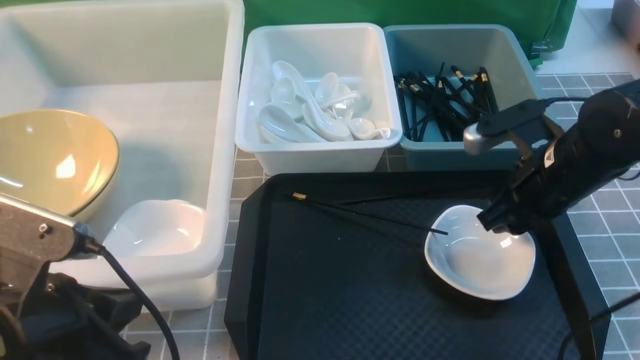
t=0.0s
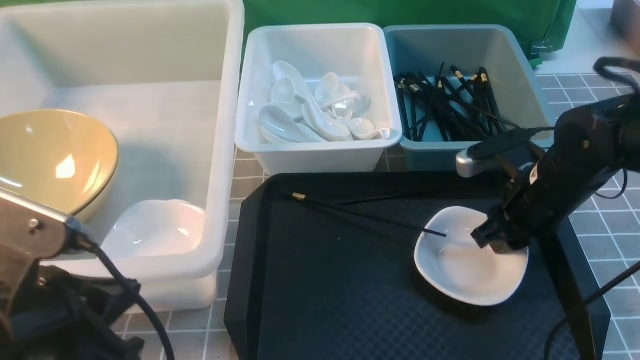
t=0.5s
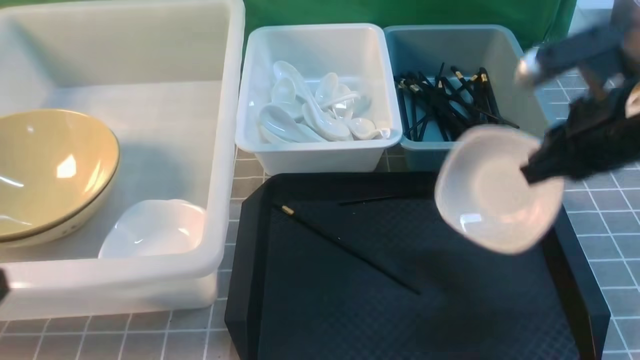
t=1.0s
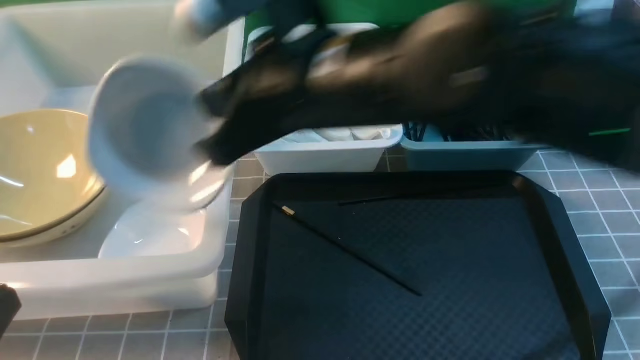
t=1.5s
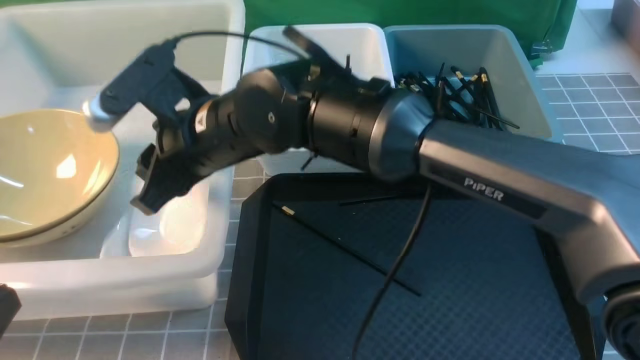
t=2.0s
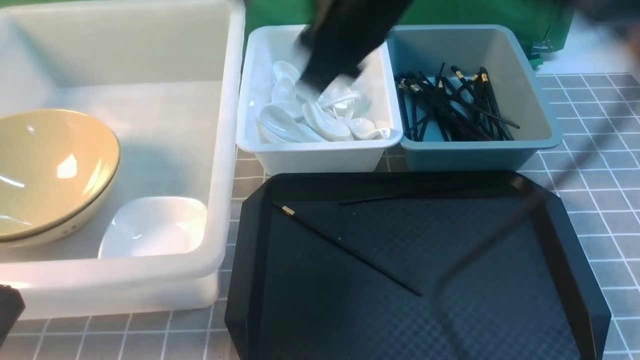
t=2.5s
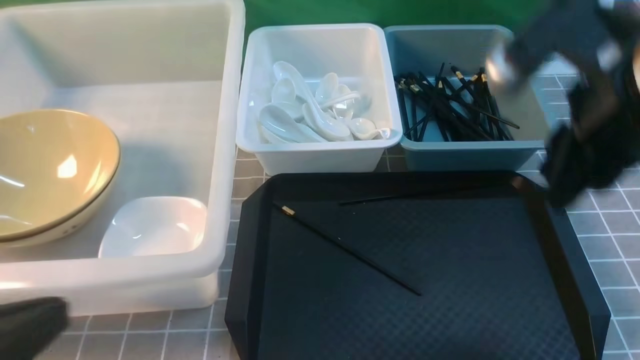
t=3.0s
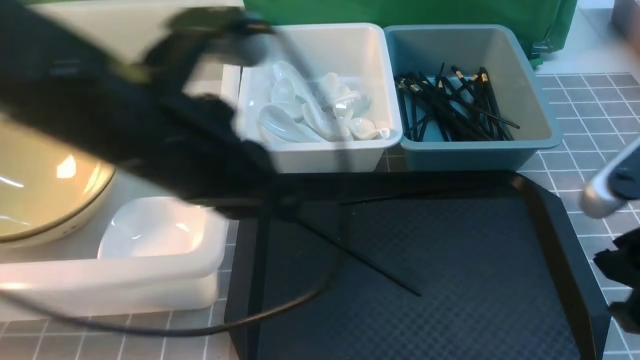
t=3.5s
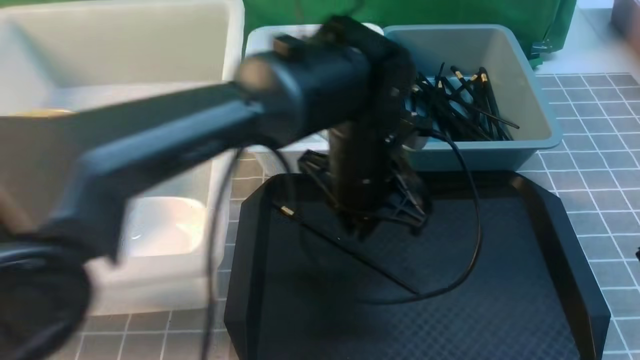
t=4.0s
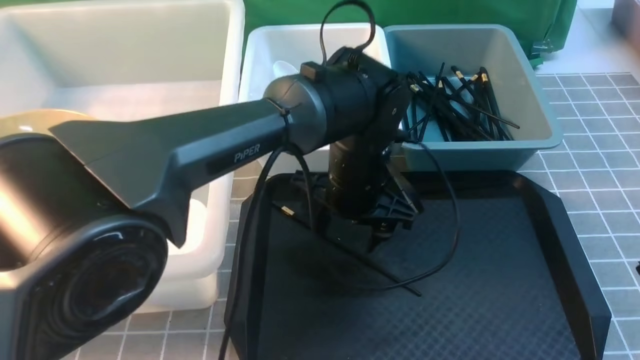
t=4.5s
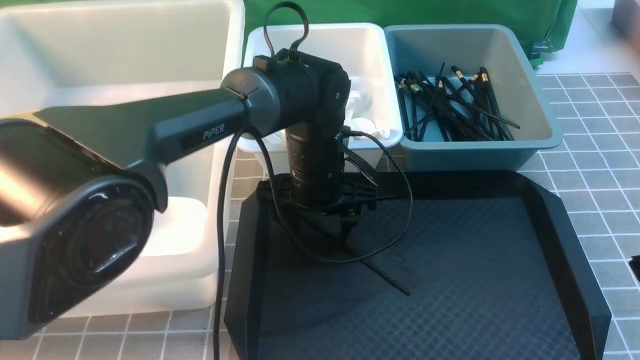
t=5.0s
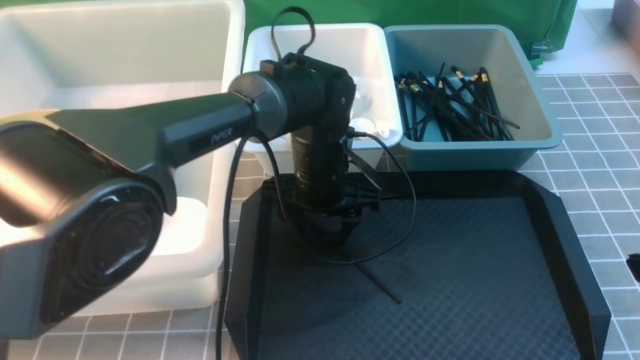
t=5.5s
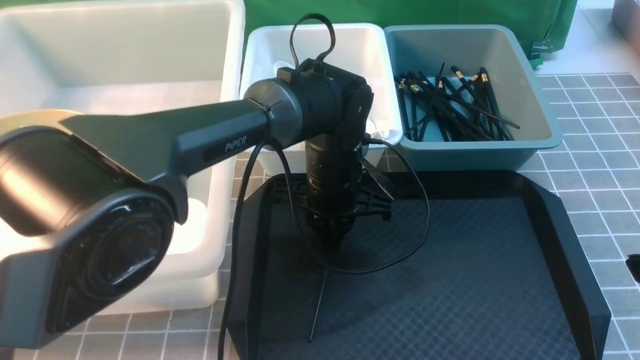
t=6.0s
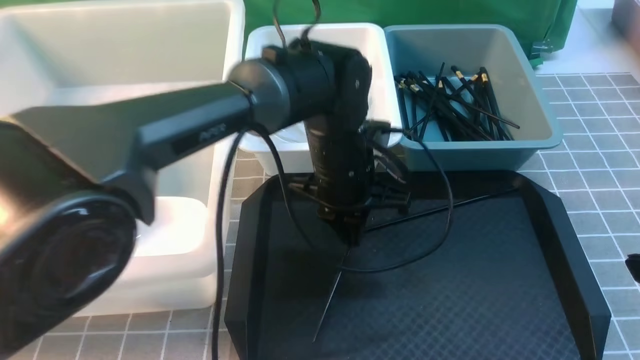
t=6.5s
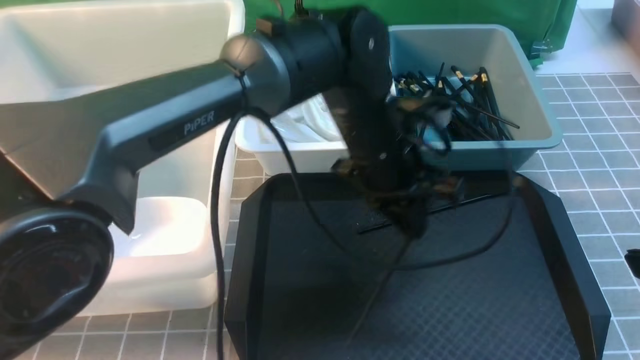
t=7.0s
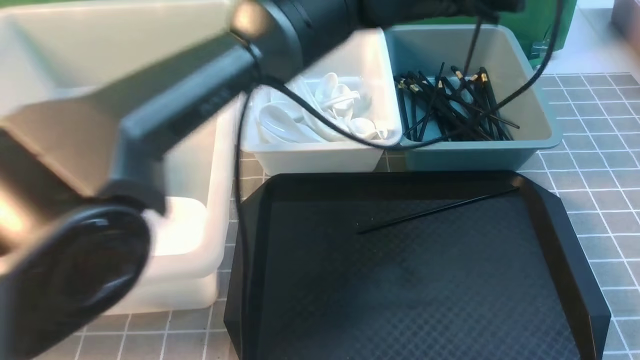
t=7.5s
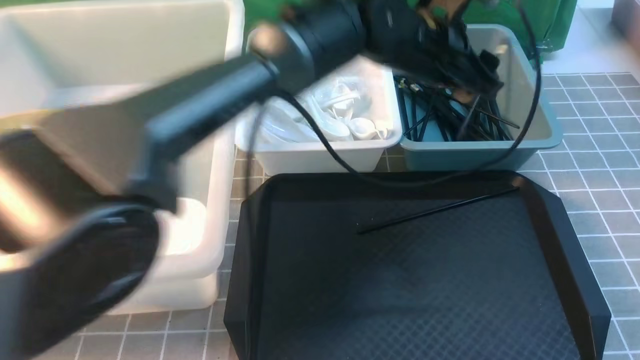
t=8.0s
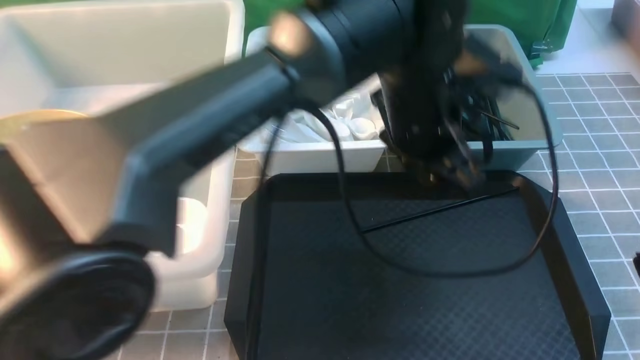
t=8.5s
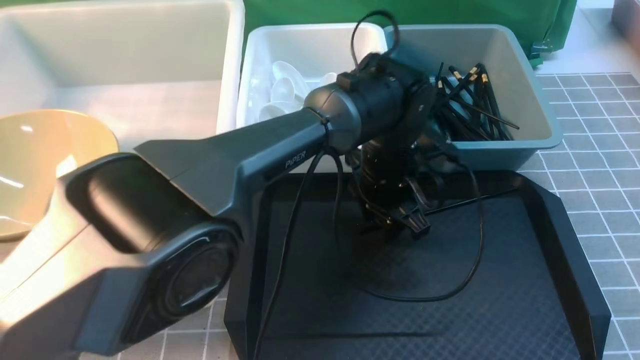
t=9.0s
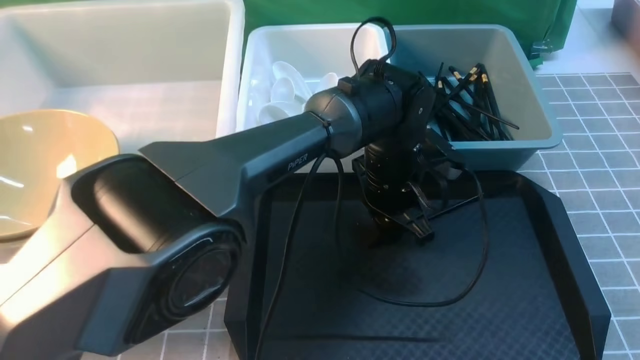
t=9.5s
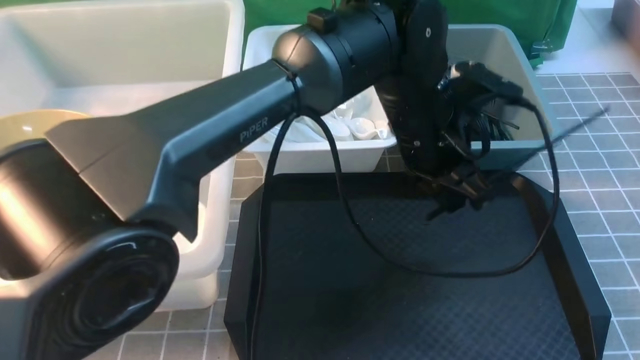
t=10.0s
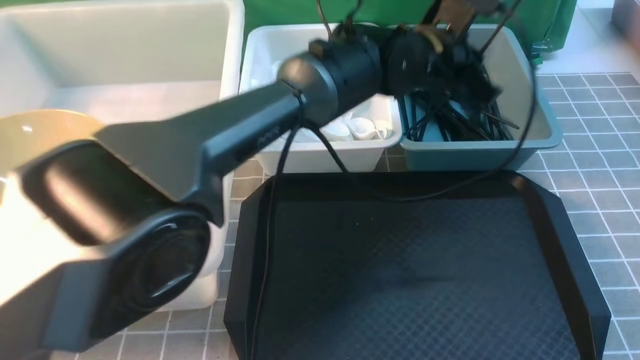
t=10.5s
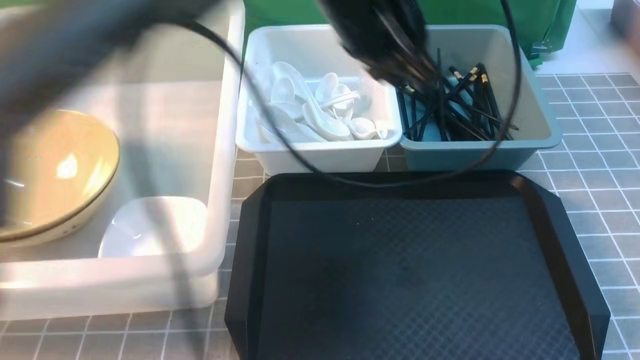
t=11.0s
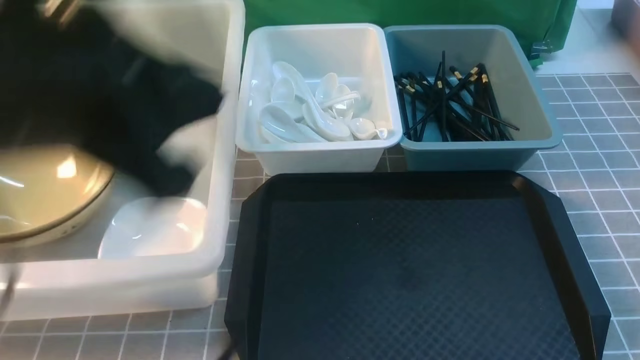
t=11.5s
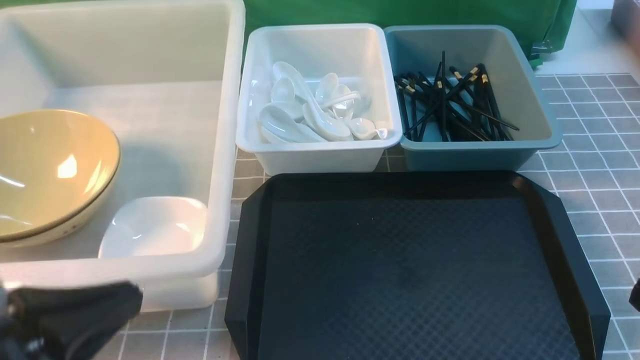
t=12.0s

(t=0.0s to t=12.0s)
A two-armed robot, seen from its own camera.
Task of the whole recording: on grey table put chopsticks spoon bowls plates into blue grey white boxes.
Step, t=1.0s - t=2.0s: use the right arm to put the plate into the large storage box on the left.
Step, t=2.5s - t=6.0s: use the left arm to grab a chopstick.
Step, t=6.5s - t=8.0s: use the left arm to put a chopstick into the small storage box on the right.
Step, t=8.5s - t=9.5s: use the left arm to grab a chopstick.
Step, t=10.0s - t=10.5s: use the left arm to put a chopstick into the small storage box on the right.
t=0.0s - t=2.0s: The right gripper shifts roughly 30 cm to the left, and closes and opens again, while the left gripper shifts some 10 cm backward.
t=2.0s - t=4.0s: The left gripper heads to the right and forward, covering some 40 cm. Meanwhile the right gripper shifts approximately 40 cm to the right and backward, and opens, then closes once more.
t=4.0s - t=6.0s: The left gripper goes about 15 cm downward and forward, and opens, then closes again.
t=6.0s - t=8.0s: The left gripper heads upward and to the right, covering roughly 15 cm, and opens its fingers.
t=8.0s - t=10.0s: The left gripper is displaced backward by approximately 5 cm, and closes its fingers.
t=10.0s - t=12.0s: The left gripper goes roughly 40 cm to the left and backward; the right gripper shifts by approximately 5 cm, and closes its fingers.

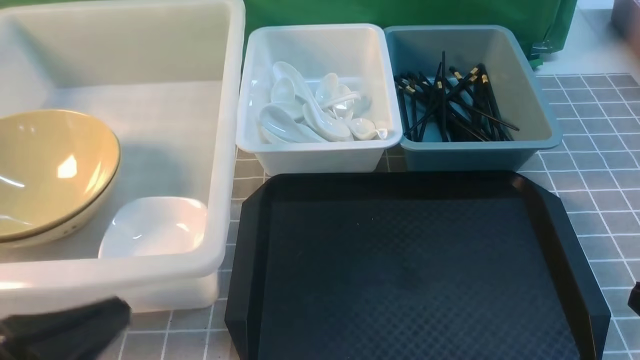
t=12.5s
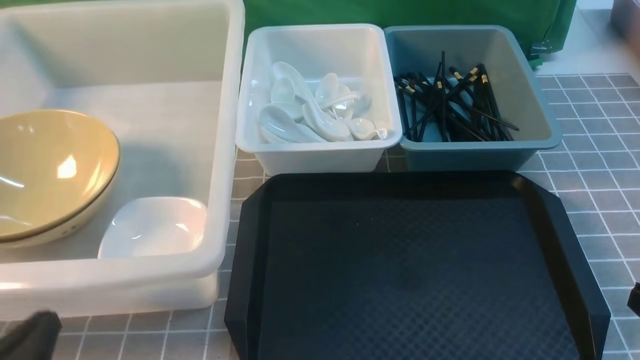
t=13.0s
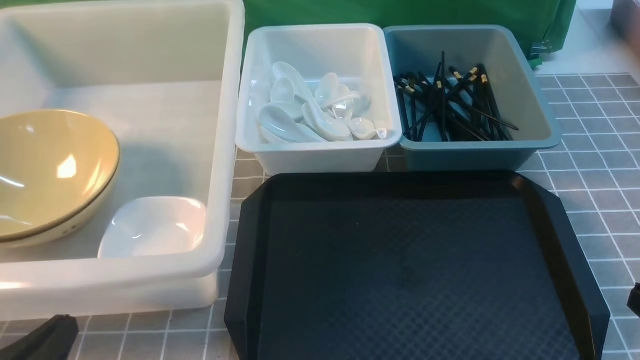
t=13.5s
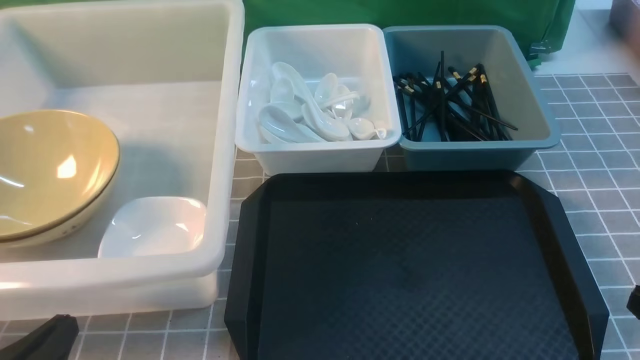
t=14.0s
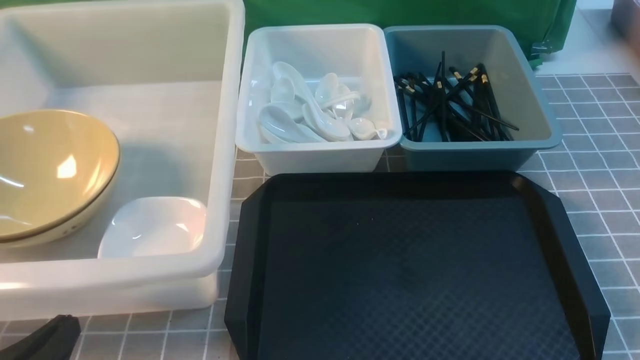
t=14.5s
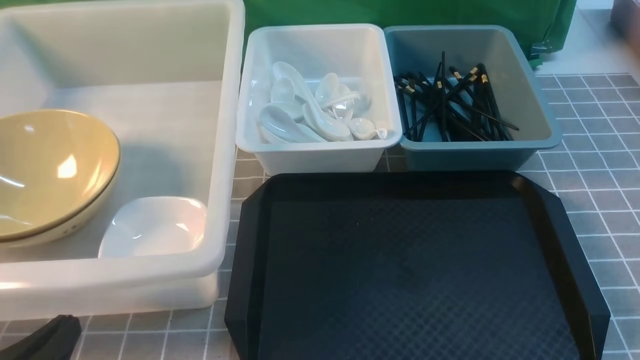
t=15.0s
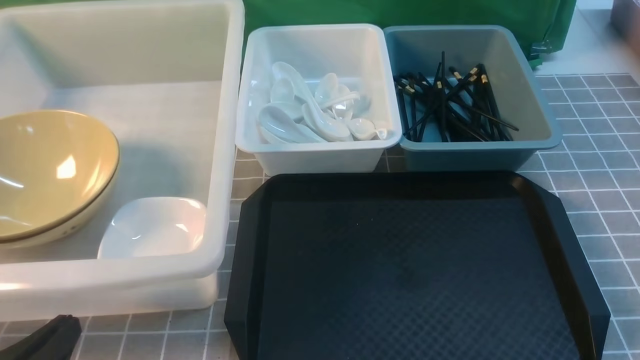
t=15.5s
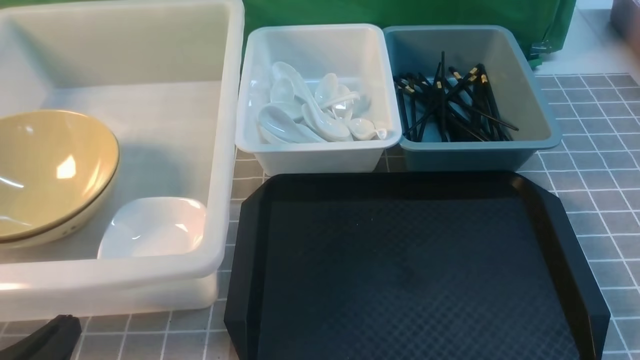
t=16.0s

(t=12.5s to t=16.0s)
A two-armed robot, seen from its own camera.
Task of the whole recording: on grey table put chopsticks spoon bowls plates into blue grey white boxes.
t=12.5s - t=14.5s: The left gripper heads downward, covering about 10 cm.

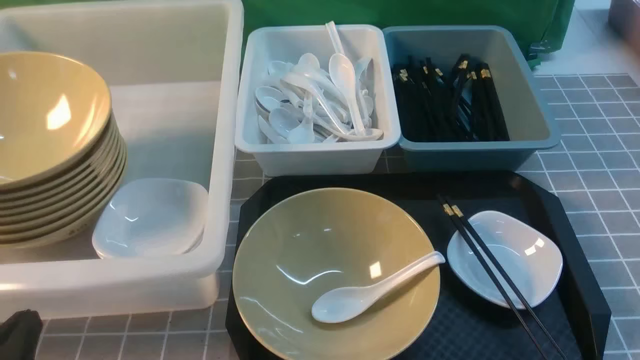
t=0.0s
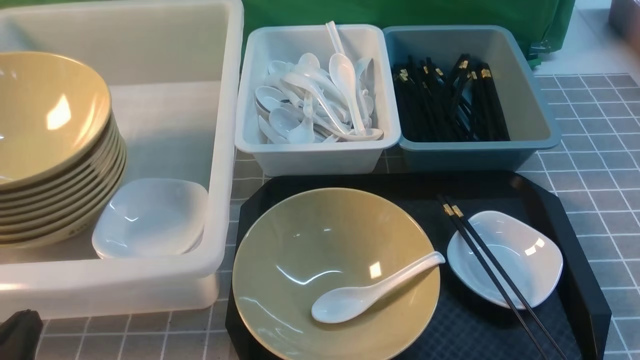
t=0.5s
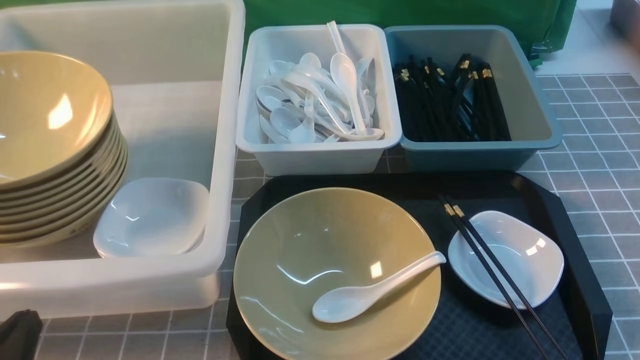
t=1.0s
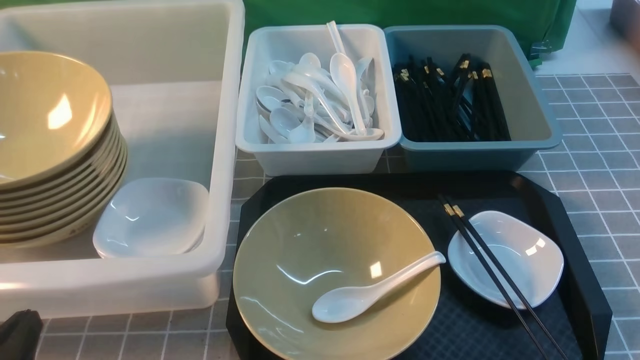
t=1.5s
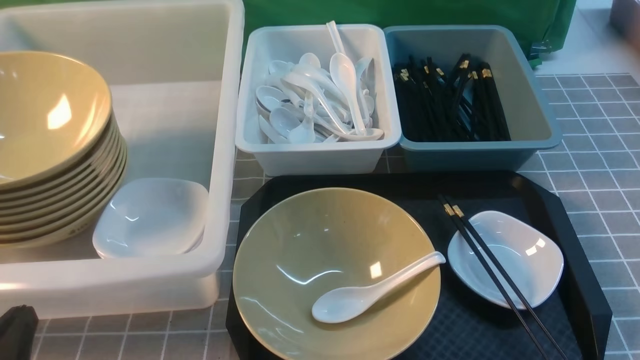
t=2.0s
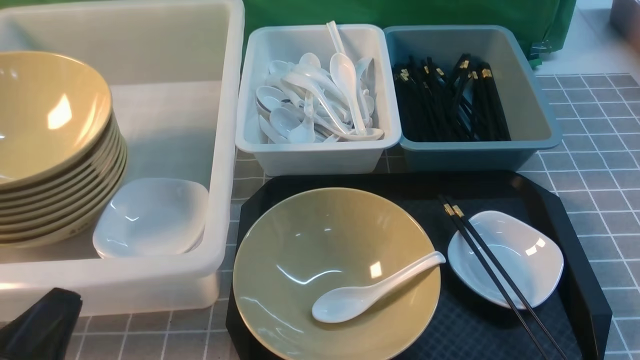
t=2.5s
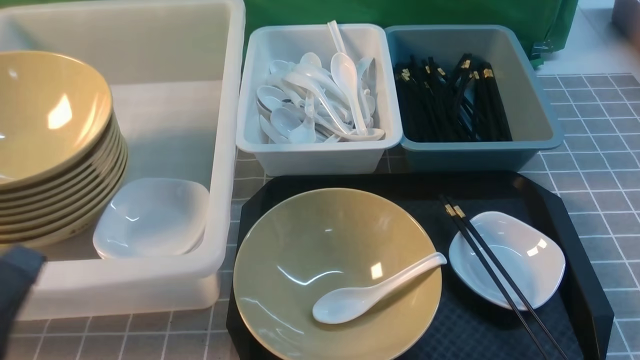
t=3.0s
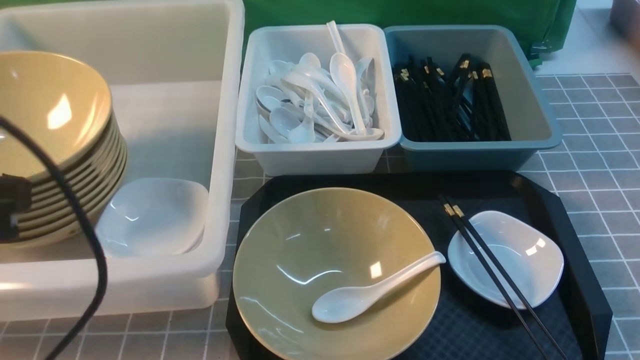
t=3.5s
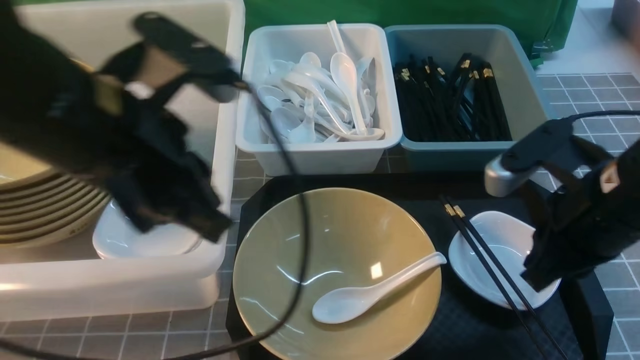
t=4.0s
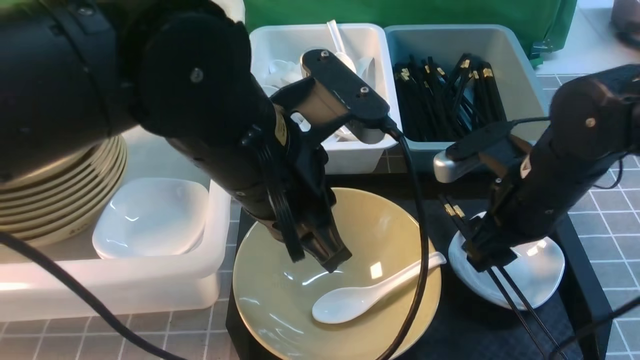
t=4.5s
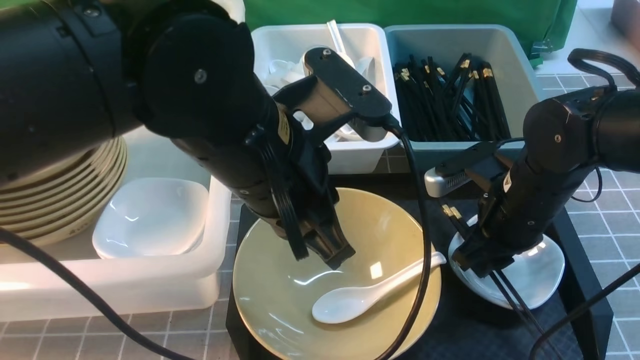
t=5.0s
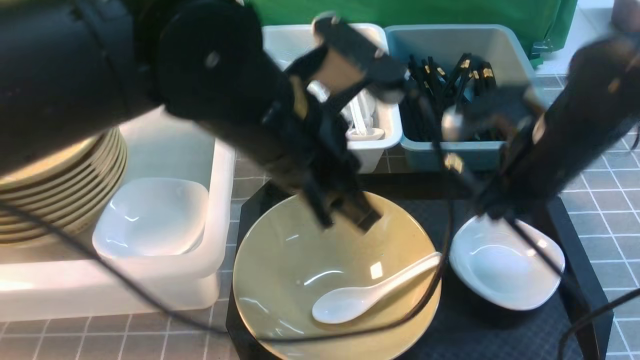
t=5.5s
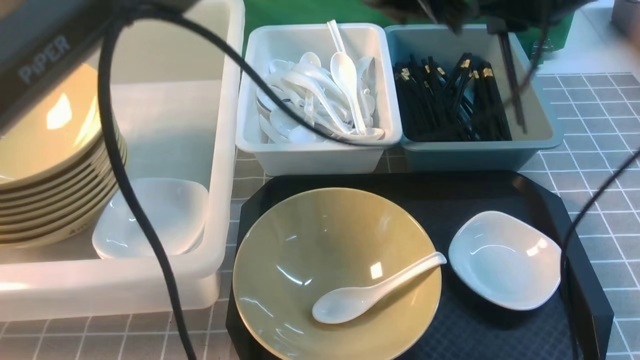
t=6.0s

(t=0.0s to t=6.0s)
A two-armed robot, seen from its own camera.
Task of the whole recording: on grey table put chopsticks spoon bowls plates into blue grey white boxes.
Step, t=0.0s - t=5.0s: use the right arm to grab the chopsticks.
t=2.0s - t=4.0s: The right gripper is displaced forward, to the left and upward by some 25 cm. Meanwhile the left gripper shifts about 25 cm upward, forward and to the right.
t=4.0s - t=6.0s: The left gripper heads to the right and forward, covering about 20 cm. Meanwhile the right gripper goes some 20 cm forward, and opens, then closes once more.
